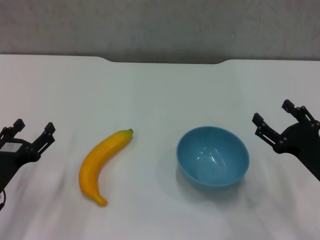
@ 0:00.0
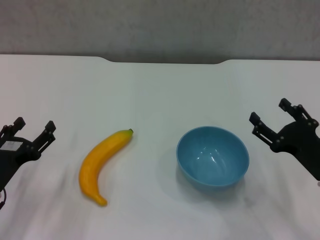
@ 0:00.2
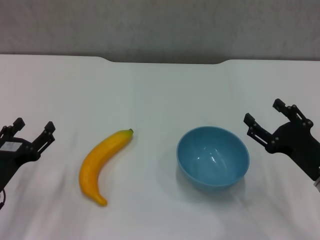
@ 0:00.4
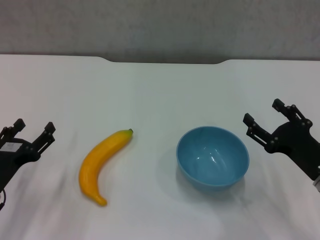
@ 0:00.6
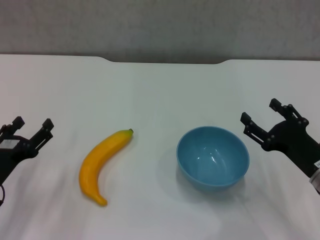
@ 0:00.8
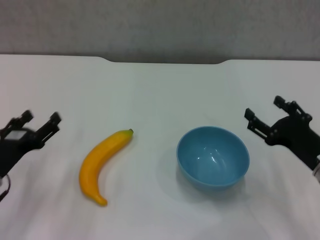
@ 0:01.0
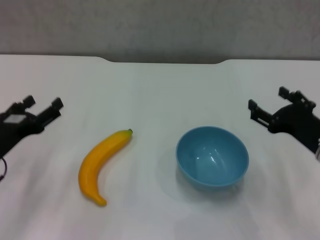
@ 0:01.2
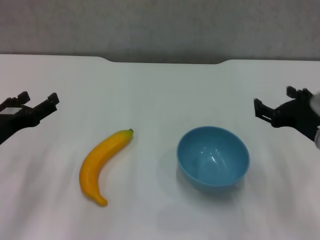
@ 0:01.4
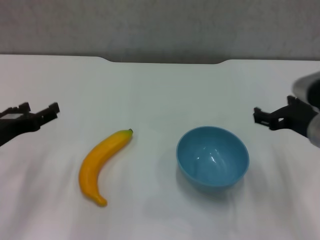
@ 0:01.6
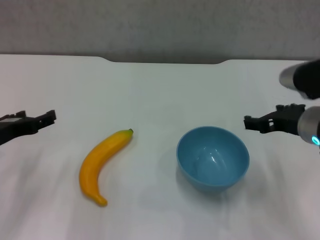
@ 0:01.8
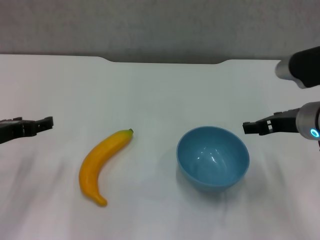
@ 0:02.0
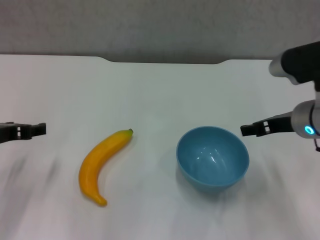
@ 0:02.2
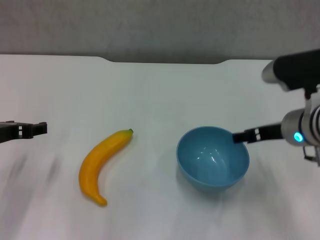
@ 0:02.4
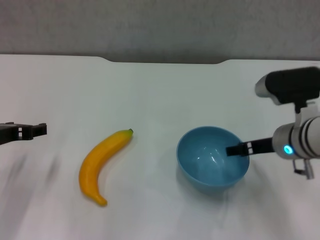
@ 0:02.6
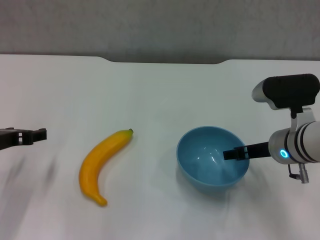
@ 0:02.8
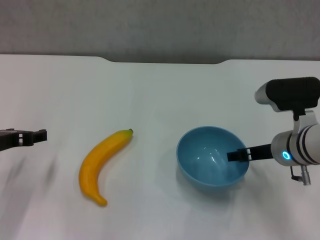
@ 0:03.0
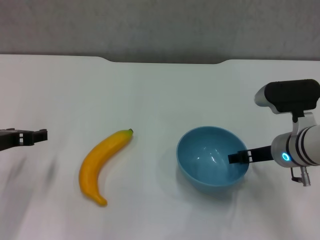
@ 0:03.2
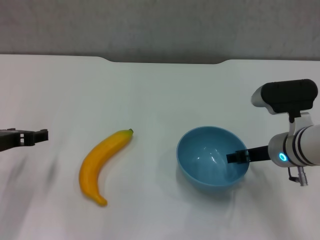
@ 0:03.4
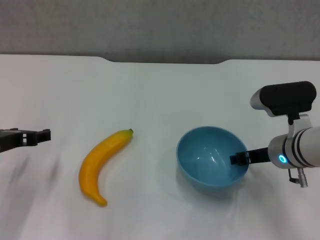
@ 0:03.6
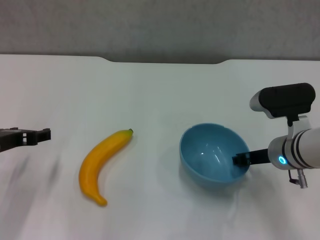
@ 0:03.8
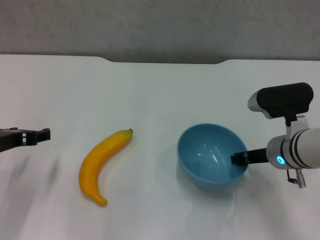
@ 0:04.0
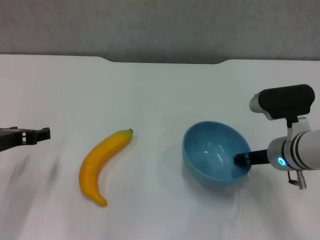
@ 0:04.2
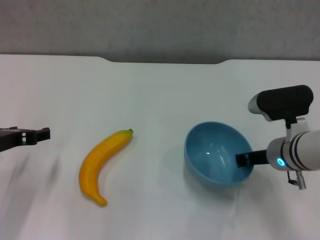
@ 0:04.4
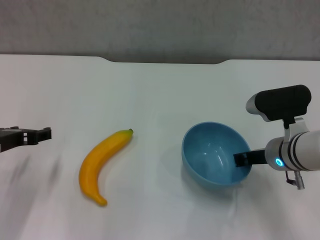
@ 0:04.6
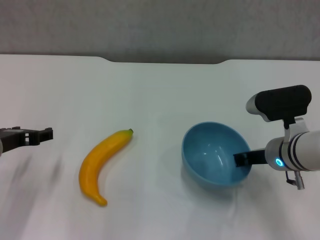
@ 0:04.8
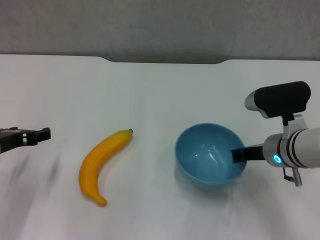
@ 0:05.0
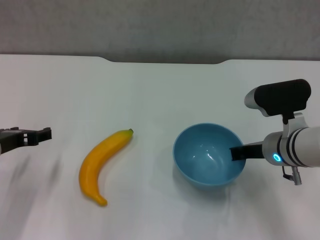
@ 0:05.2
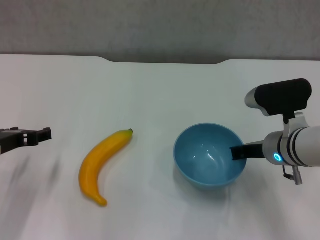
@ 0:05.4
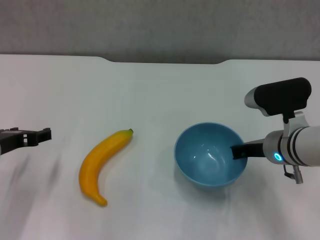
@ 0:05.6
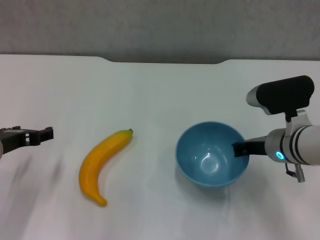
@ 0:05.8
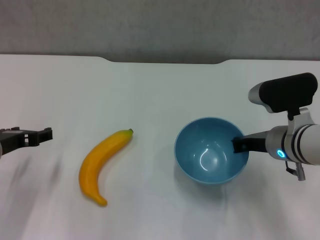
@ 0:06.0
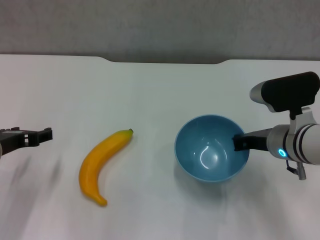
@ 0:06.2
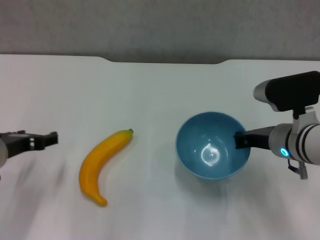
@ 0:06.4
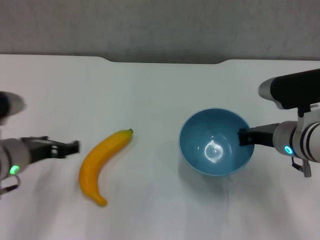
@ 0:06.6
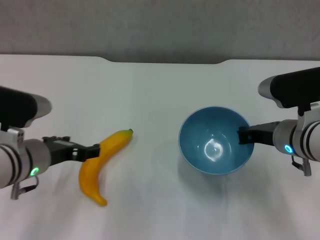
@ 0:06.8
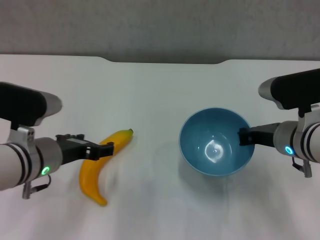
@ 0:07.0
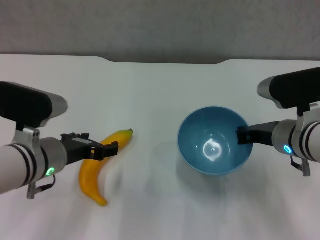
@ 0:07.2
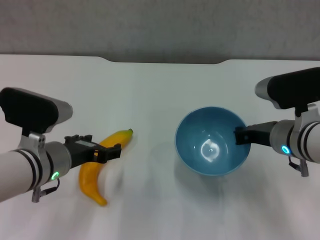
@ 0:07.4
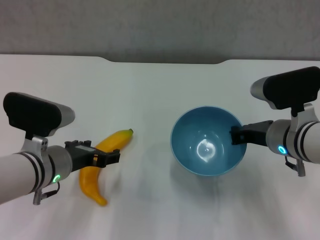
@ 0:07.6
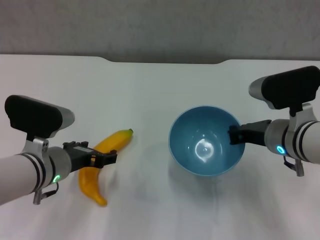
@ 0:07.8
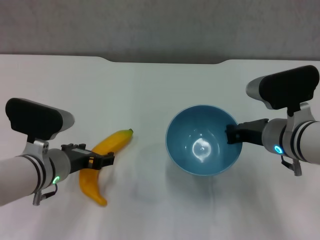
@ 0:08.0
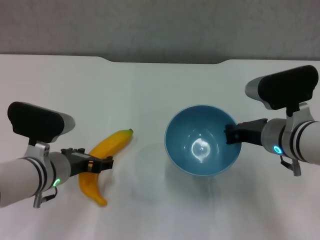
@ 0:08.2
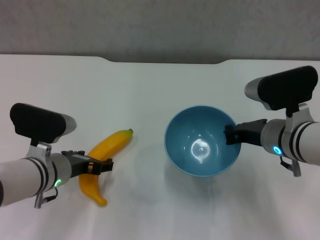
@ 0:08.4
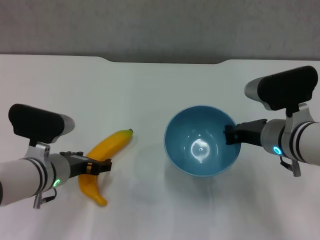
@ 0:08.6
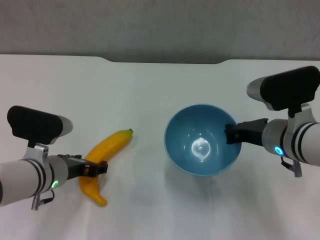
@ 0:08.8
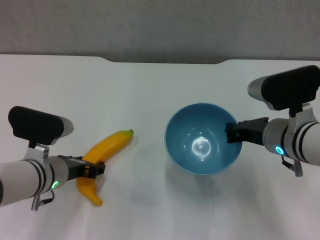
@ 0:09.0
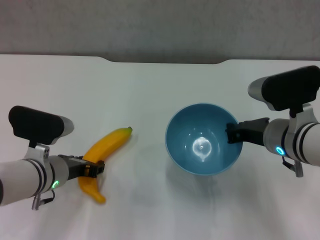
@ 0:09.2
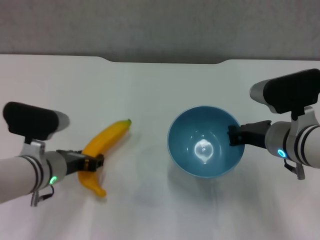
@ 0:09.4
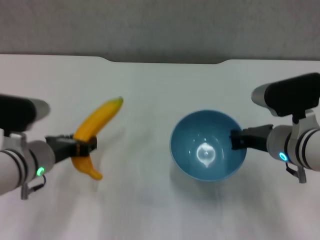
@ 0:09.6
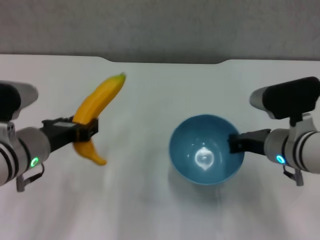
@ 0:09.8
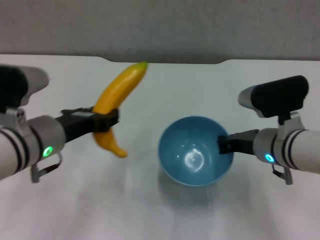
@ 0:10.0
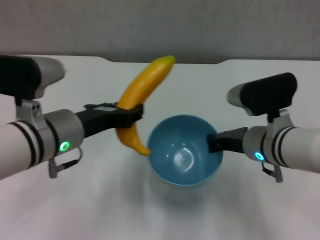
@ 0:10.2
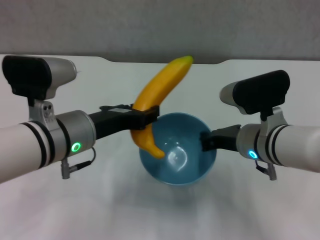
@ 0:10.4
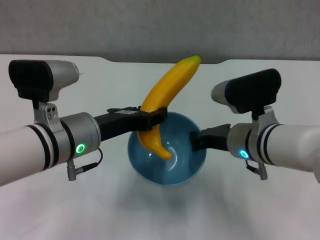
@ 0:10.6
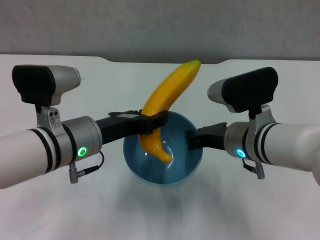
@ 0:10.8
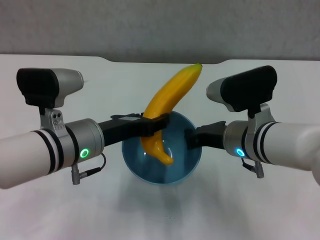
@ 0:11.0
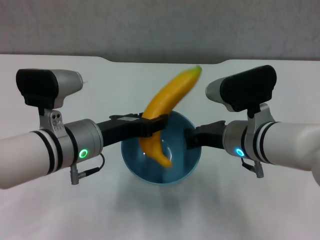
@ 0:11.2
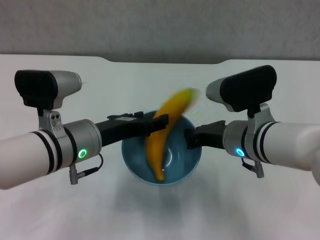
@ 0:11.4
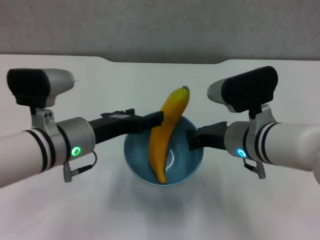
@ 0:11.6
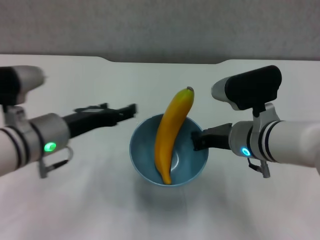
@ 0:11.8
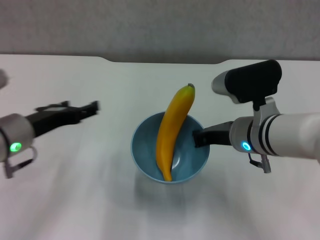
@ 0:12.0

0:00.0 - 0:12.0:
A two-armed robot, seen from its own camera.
Step, 0:00.0 - 0:05.0: Grasp the blue bowl with right gripper.
Step, 0:05.2 - 0:06.4: Lift the blue bowl with right gripper.
Step, 0:06.8 - 0:09.0: Grasp the banana with left gripper.
Step, 0:09.2 - 0:11.4: Place the banana in the blue bowl with left gripper.
0:00.0 - 0:01.6: Both grippers travel together upward, approximately 10 cm.
0:01.6 - 0:03.0: The right gripper ends up about 5 cm from where it was.
0:03.0 - 0:04.4: The right gripper closes.
0:04.4 - 0:06.0: The grippers make only small movements.
0:06.0 - 0:07.6: The left gripper travels to the right by roughly 10 cm.
0:07.6 - 0:09.0: There are only small adjustments of the grippers.
0:09.0 - 0:10.4: The left gripper shifts approximately 10 cm upward and to the right, and closes.
0:10.4 - 0:12.0: The left gripper is displaced to the left by about 10 cm, and opens.

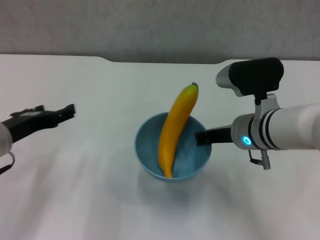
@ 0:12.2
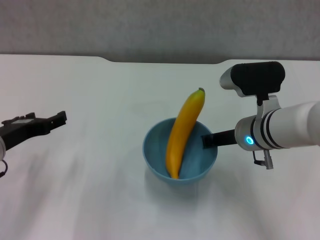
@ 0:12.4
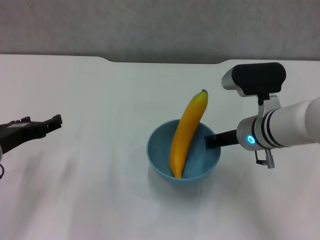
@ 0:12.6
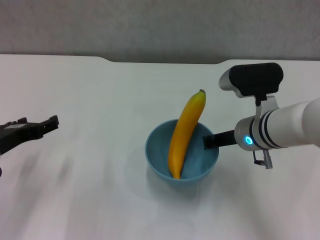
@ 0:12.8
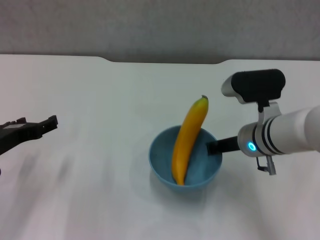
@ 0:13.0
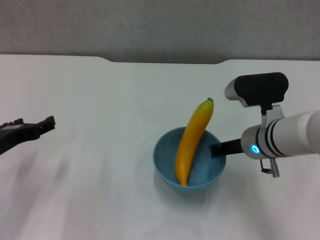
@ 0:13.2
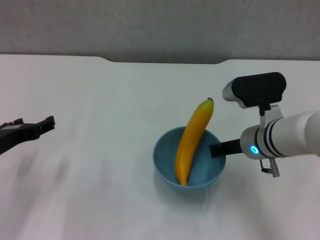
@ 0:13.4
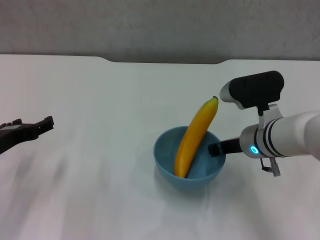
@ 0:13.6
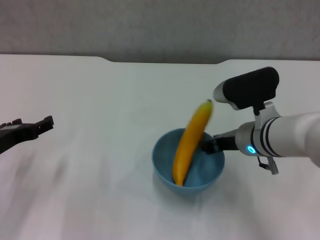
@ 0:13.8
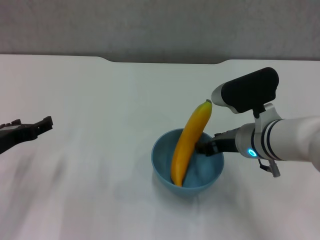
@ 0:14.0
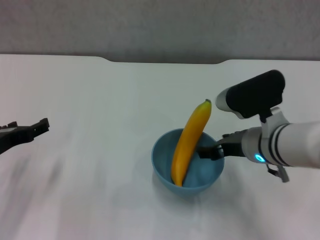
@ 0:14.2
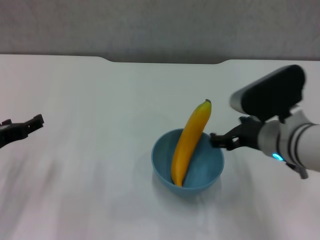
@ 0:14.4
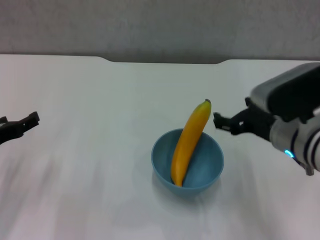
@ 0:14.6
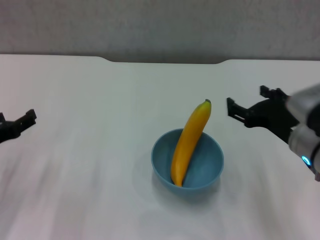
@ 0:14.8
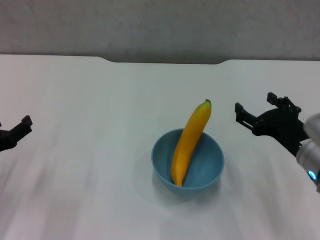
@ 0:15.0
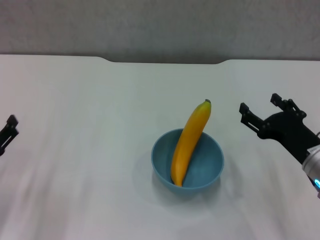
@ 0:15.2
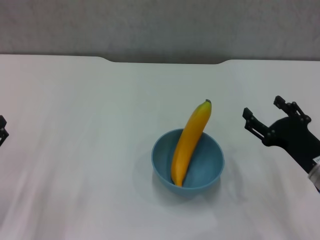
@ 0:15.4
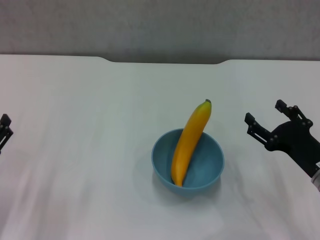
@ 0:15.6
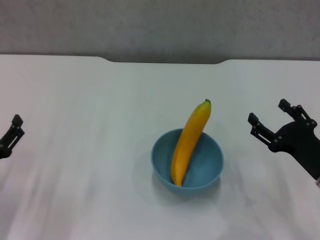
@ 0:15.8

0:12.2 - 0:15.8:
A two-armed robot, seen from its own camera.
Step, 0:12.2 - 0:14.2: Place the bowl on the table with right gripper.
0:12.2 - 0:14.0: The right gripper opens.
0:14.0 - 0:15.8: The right gripper goes roughly 15 cm to the right, backward and downward, and opens up. The left gripper heads downward and backward, covering roughly 10 cm.
